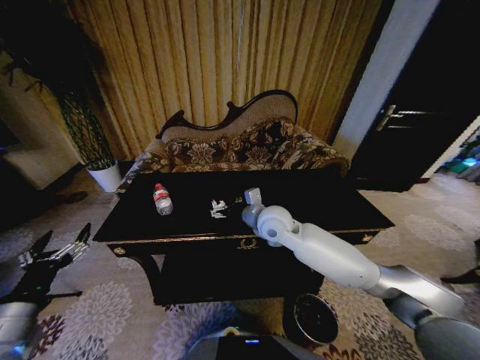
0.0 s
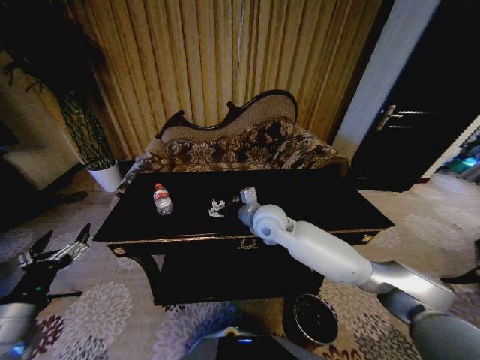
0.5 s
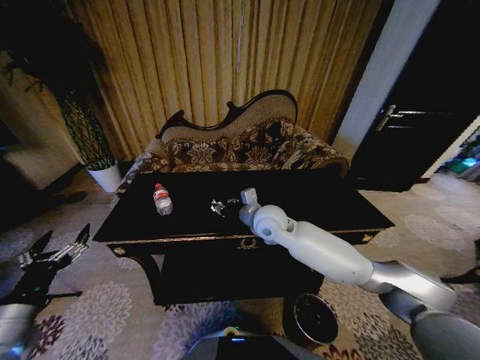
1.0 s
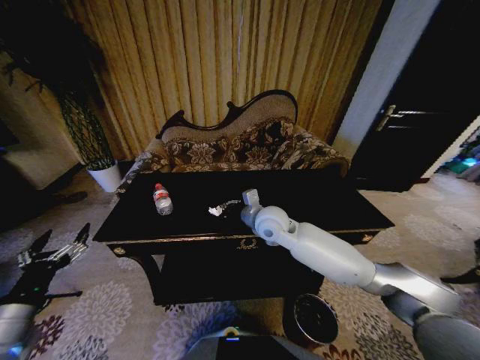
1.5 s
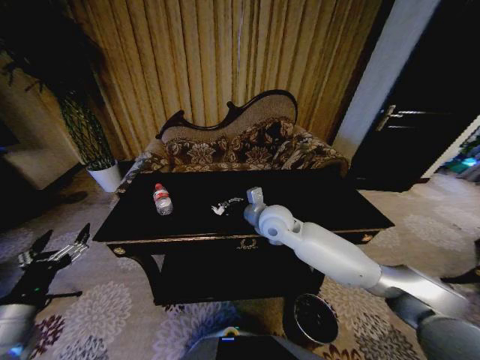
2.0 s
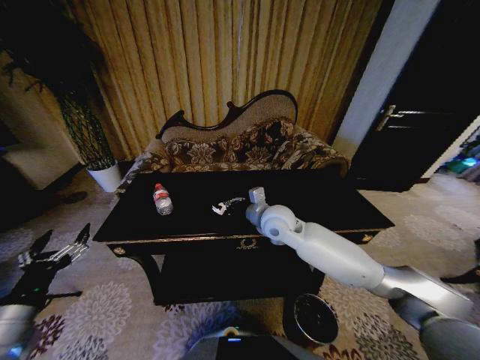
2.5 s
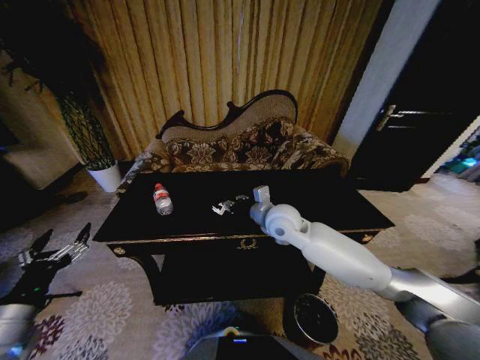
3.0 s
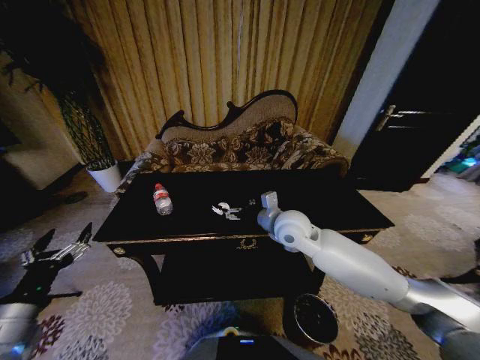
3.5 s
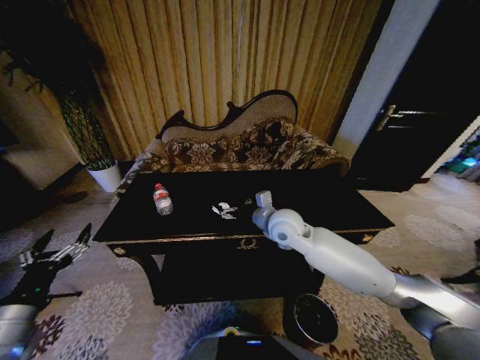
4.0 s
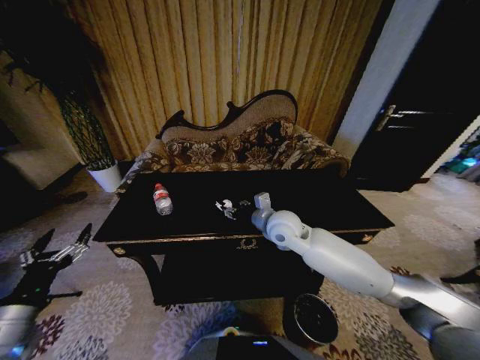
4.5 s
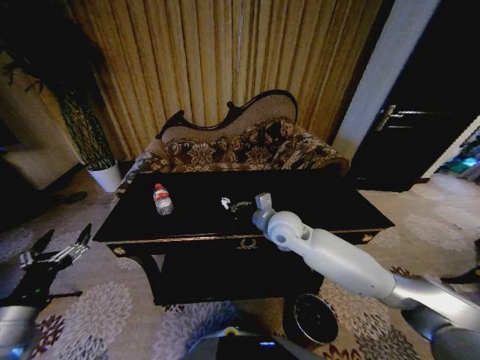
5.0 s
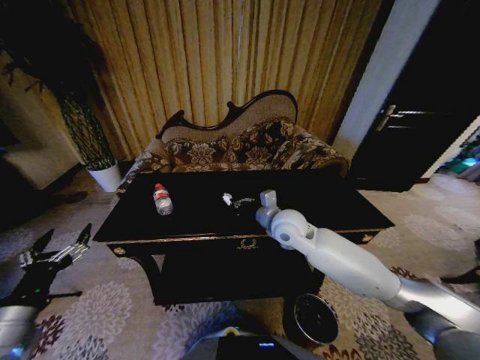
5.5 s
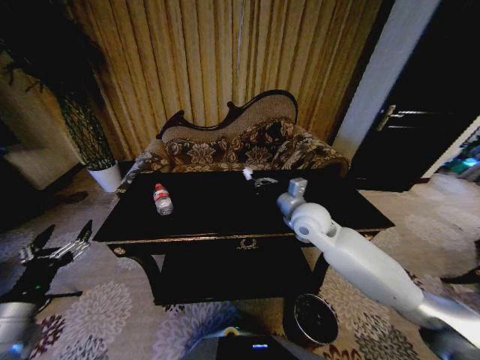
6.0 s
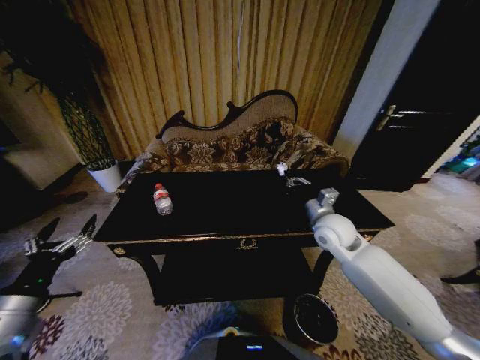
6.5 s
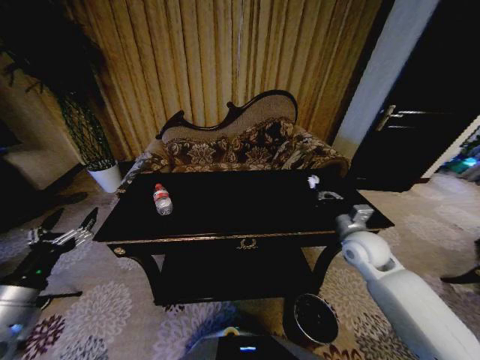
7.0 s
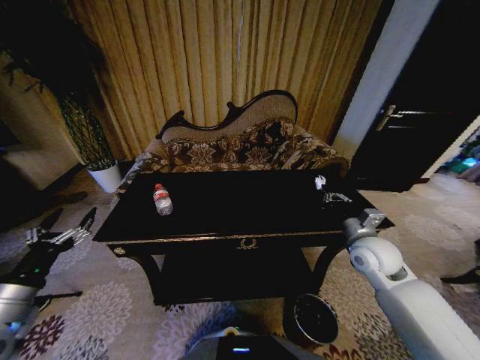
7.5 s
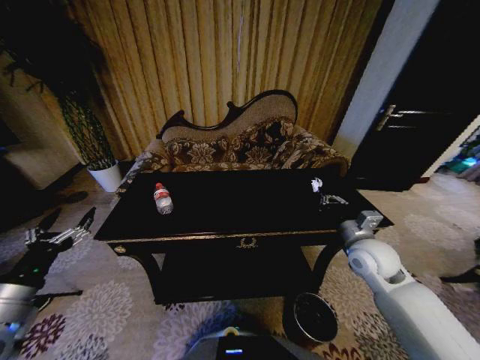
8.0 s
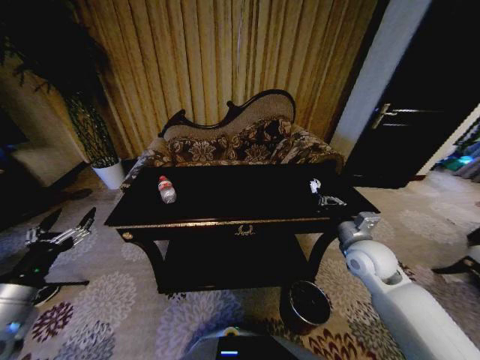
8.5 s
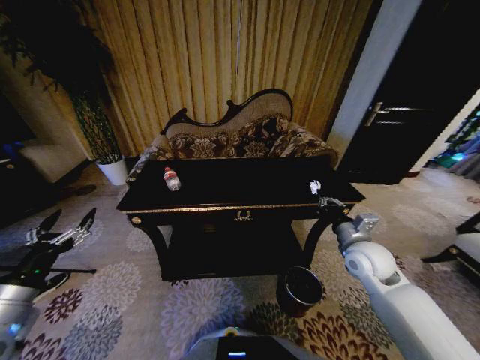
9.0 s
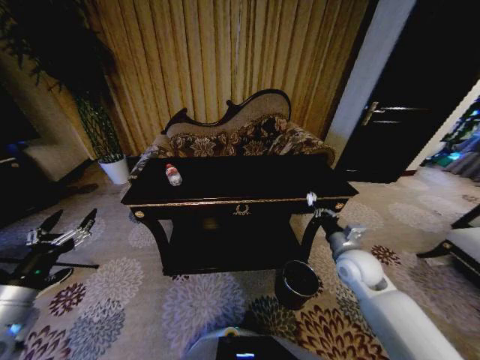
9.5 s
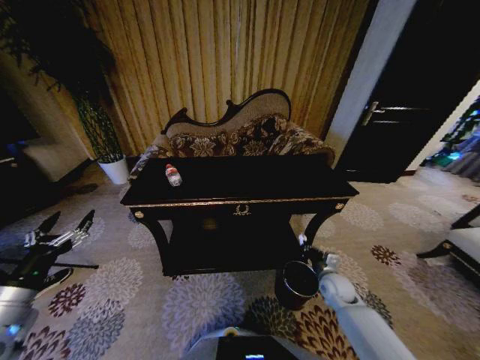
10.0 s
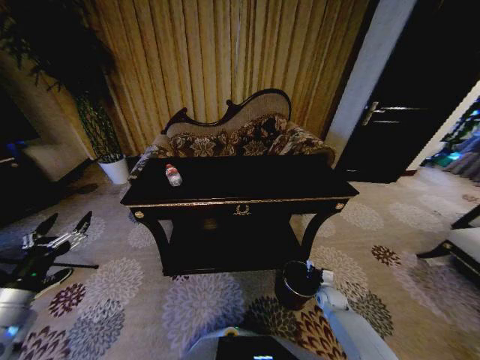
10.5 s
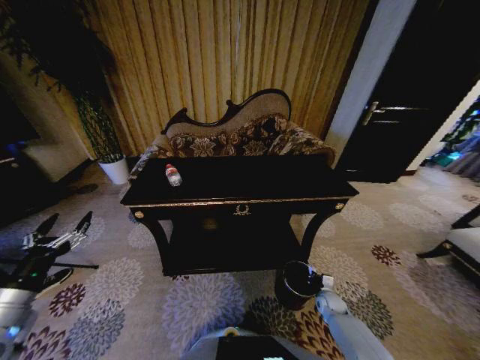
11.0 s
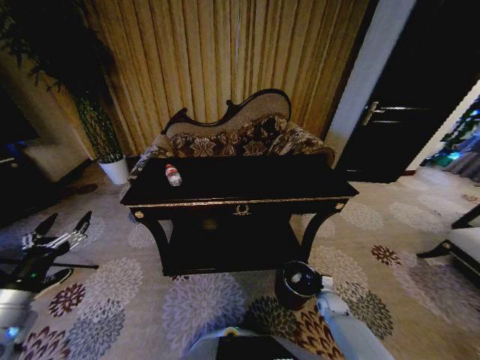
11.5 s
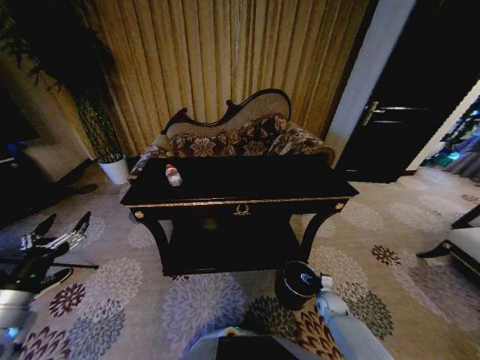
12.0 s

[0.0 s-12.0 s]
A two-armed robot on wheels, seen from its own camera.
Task of the whole recording: Move to the front of the table and place the trash on the table into the trash bin.
0.0 to 2.0 s: The right gripper closes its fingers.
2.0 to 4.0 s: The right gripper opens up.
4.0 to 6.0 s: The right gripper heads to the right, covering approximately 5 cm, and closes its fingers.
6.0 to 8.0 s: The right gripper moves to the right and backward, some 15 cm.
8.0 to 10.0 s: The right gripper moves downward, some 20 cm.
10.0 to 12.0 s: The right gripper moves downward, roughly 15 cm, and opens up.

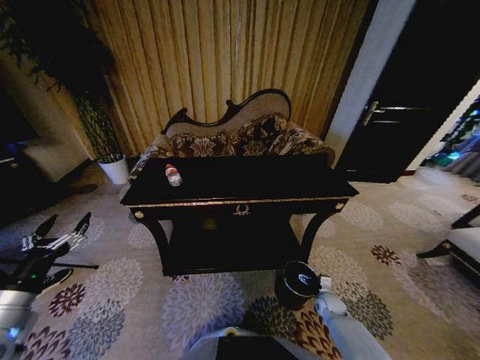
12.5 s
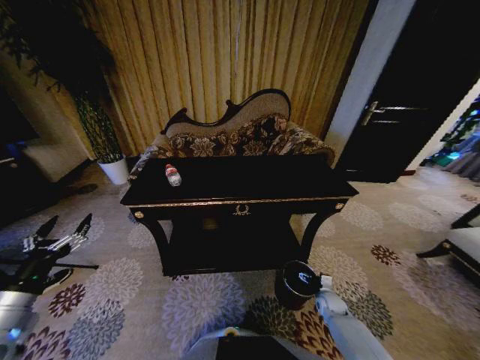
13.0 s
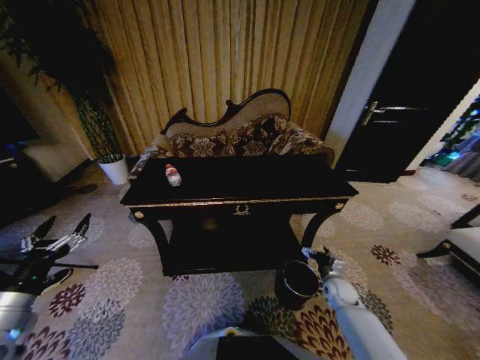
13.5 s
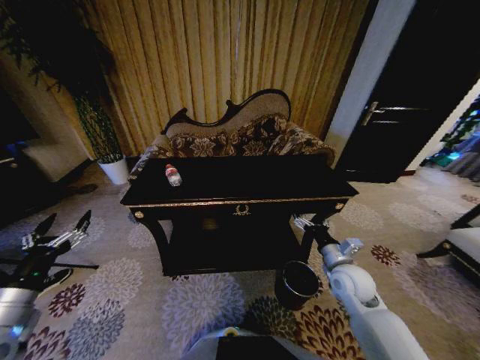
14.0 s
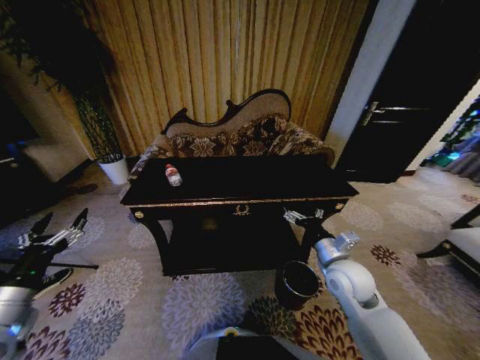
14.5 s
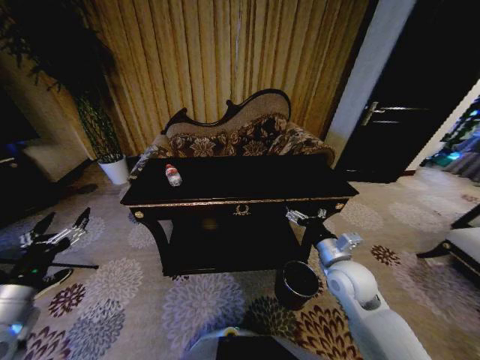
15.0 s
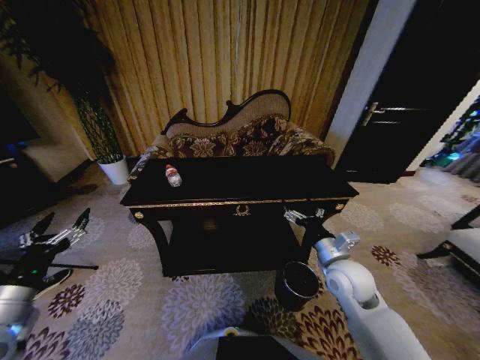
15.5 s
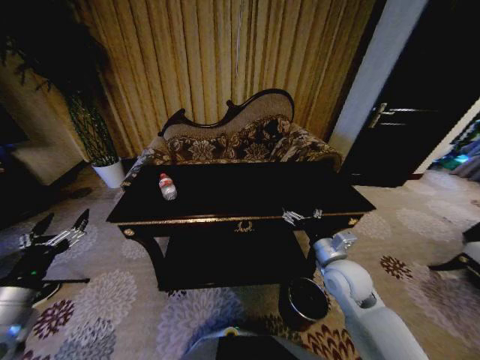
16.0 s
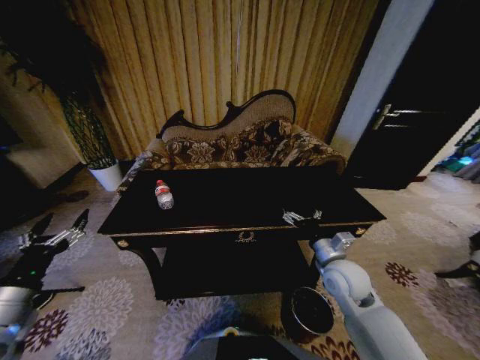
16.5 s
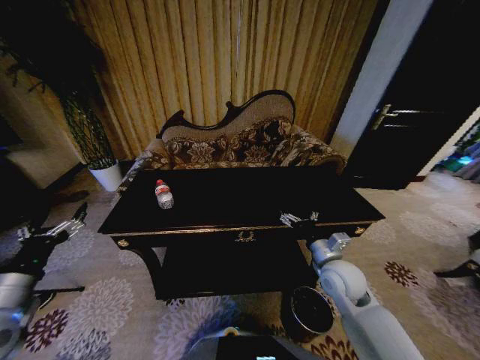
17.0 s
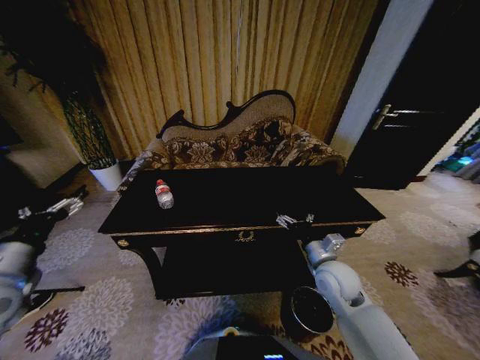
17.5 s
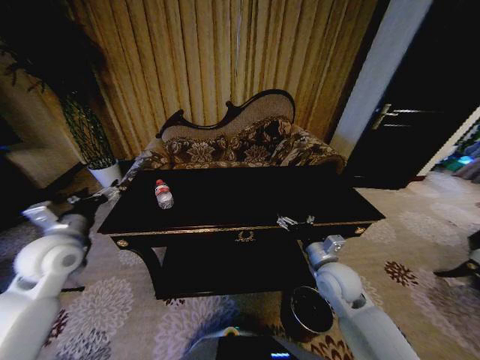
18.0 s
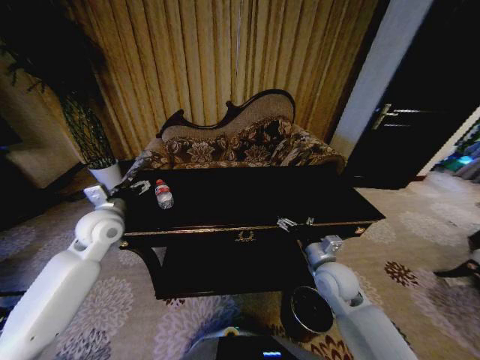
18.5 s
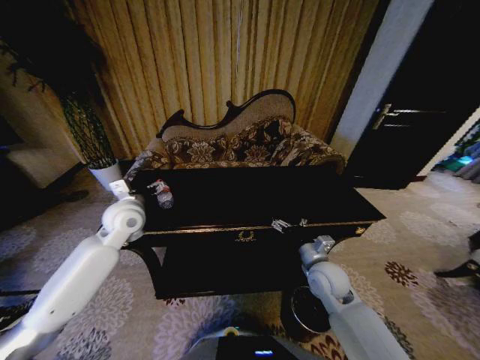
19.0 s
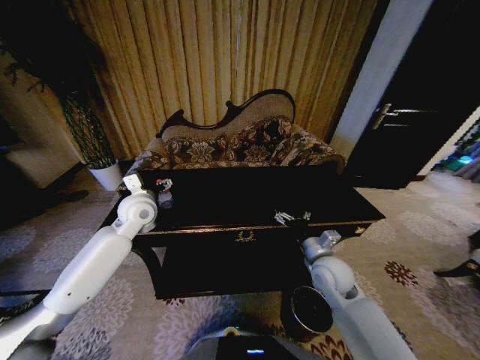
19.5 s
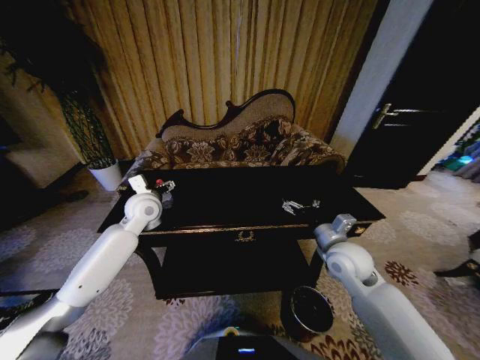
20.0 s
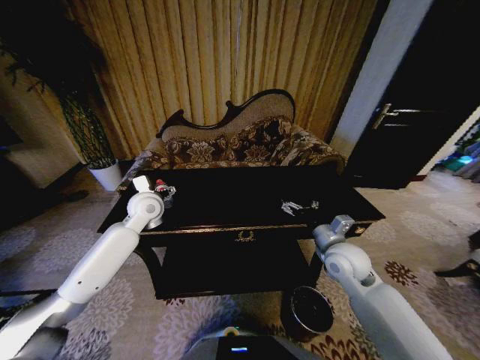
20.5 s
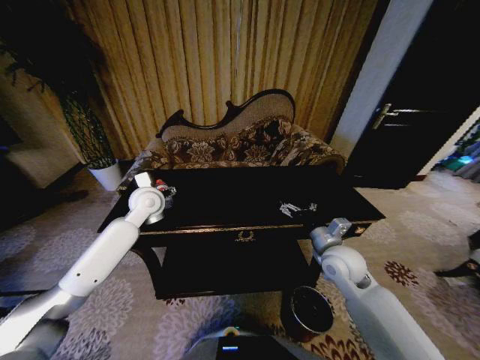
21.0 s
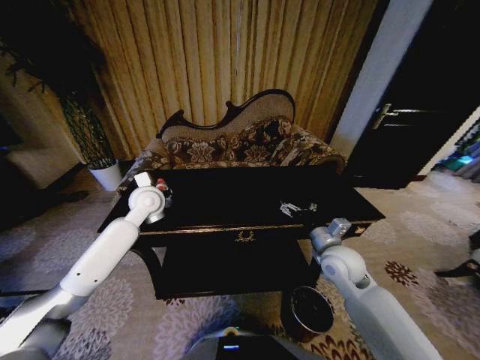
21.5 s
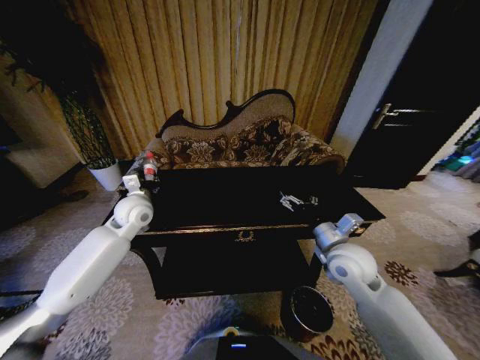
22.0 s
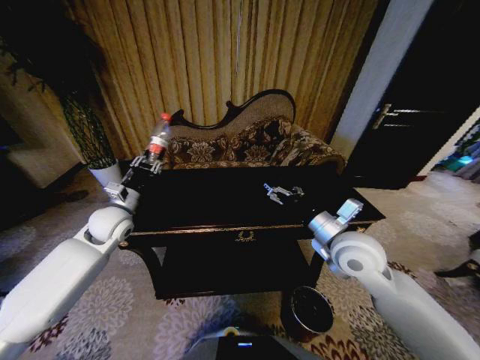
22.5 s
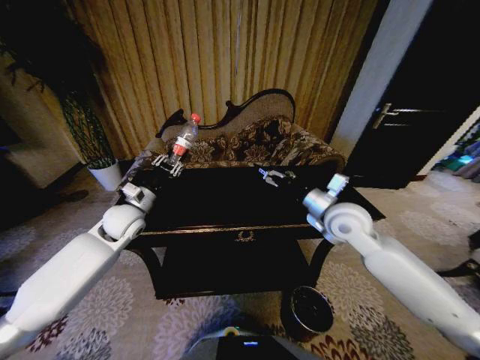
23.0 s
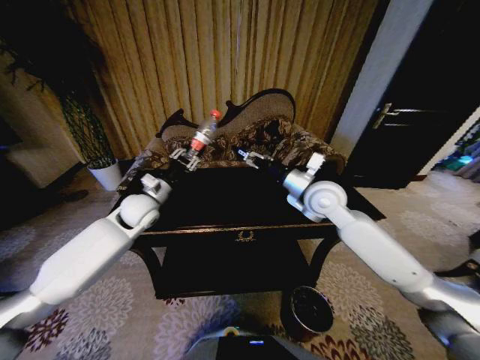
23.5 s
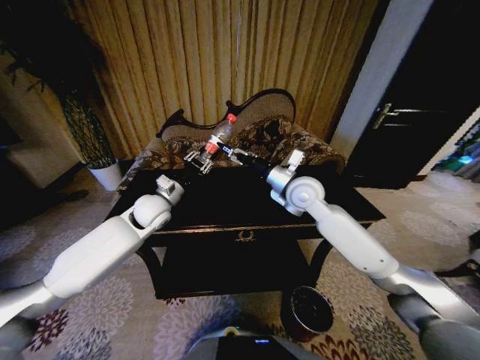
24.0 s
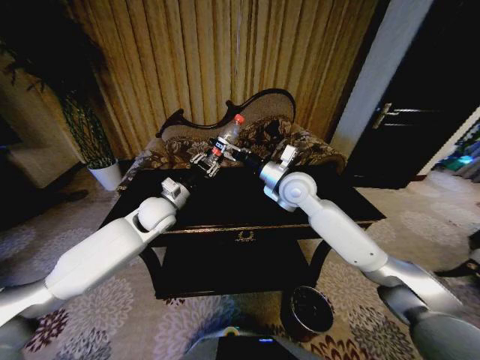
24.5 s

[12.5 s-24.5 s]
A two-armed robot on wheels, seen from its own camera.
Task of the whole recording: Move to the front of the table and place the trash on the table into the trash bin.
12.5 to 14.5 s: The right gripper moves upward, approximately 30 cm.
16.5 to 18.5 s: The left gripper goes some 25 cm forward and to the right.
18.5 to 20.5 s: The right gripper travels upward by about 5 cm; the left gripper moves to the right and forward, roughly 10 cm.
20.5 to 22.5 s: The right gripper travels upward by roughly 10 cm, while the left gripper goes some 10 cm to the left, and closes its fingers.
22.5 to 24.5 s: The right gripper goes roughly 20 cm forward and to the left. Meanwhile the left gripper shifts roughly 10 cm to the right.

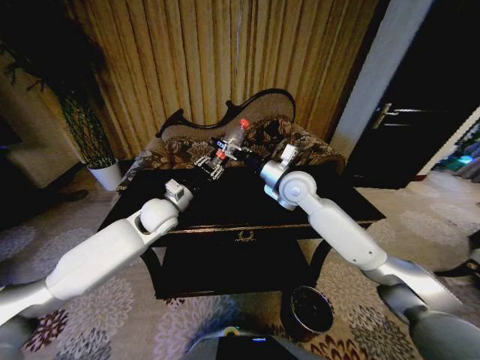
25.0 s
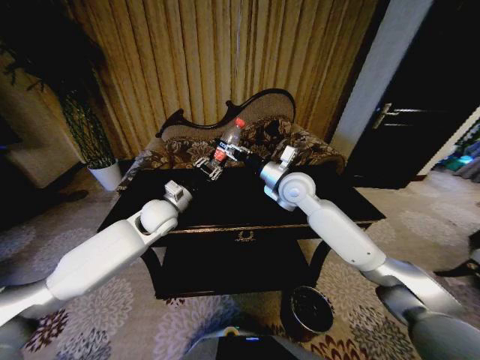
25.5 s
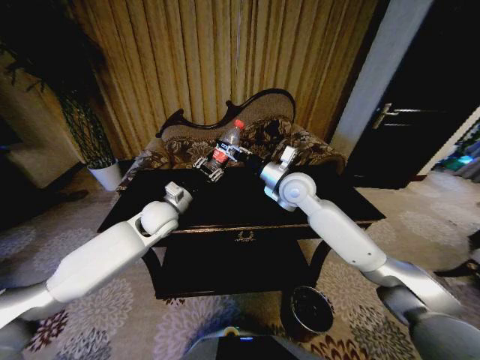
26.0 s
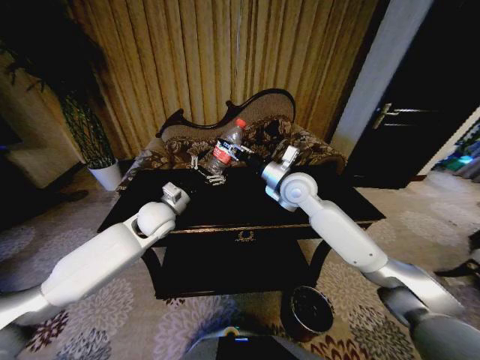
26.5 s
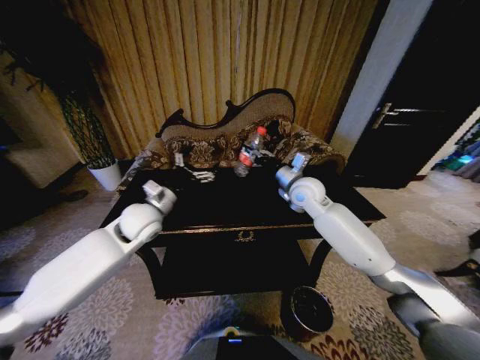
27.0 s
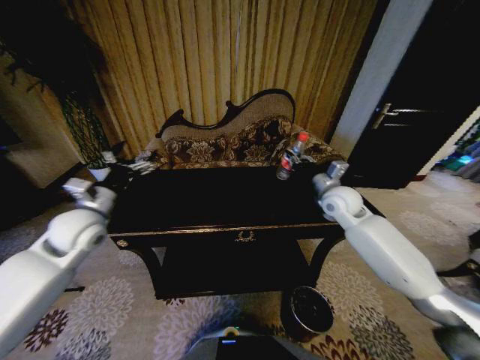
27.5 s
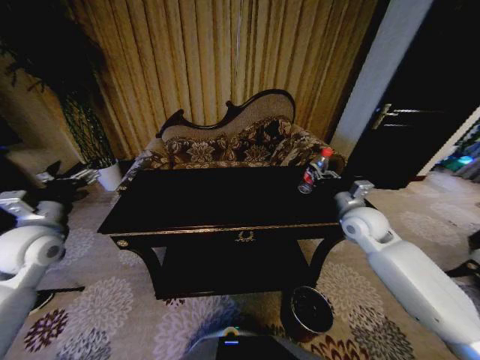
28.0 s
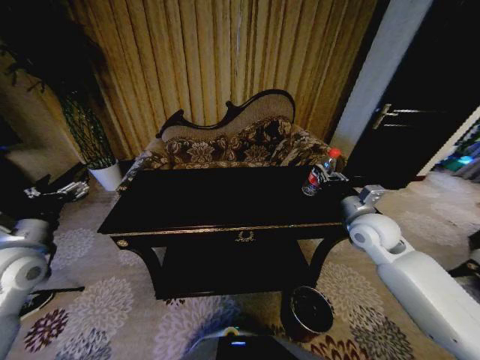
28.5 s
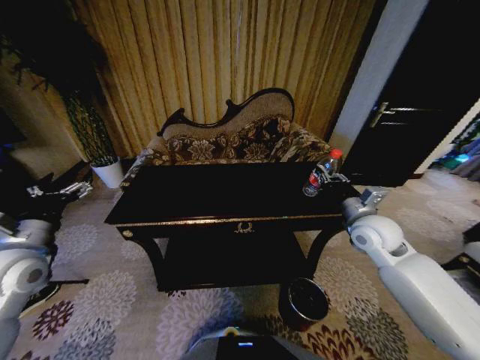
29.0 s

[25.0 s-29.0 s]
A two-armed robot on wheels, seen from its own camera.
Task of the whole recording: Move to the front of the table and place the trash on the table into the trash bin.
25.0 to 27.0 s: The left gripper opens, while the right gripper moves about 5 cm, and closes its fingers.
27.0 to 29.0 s: The right gripper heads to the right and backward, covering about 20 cm. The left gripper moves to the left and backward, some 25 cm.
